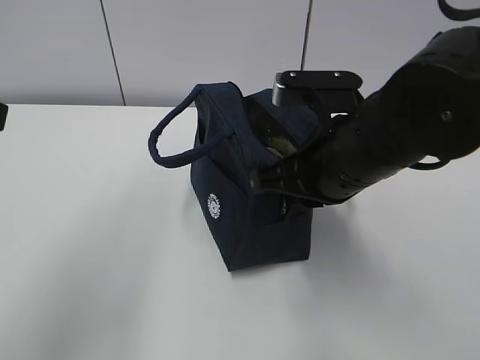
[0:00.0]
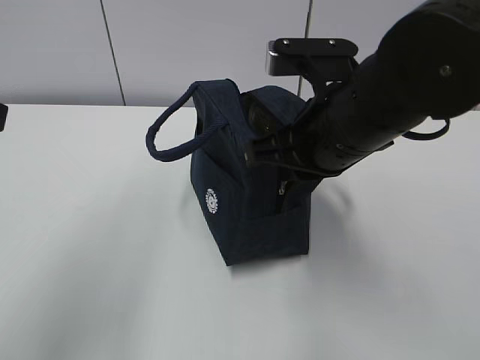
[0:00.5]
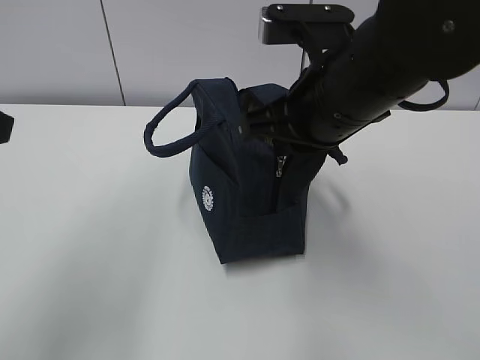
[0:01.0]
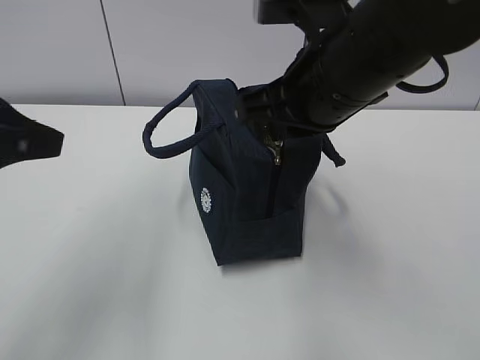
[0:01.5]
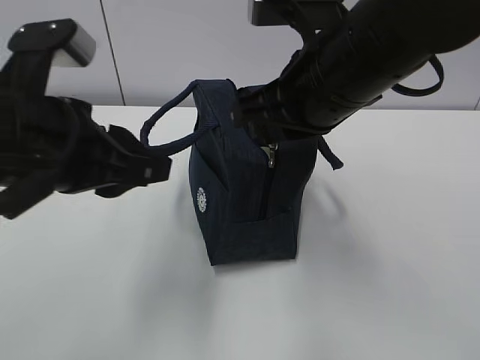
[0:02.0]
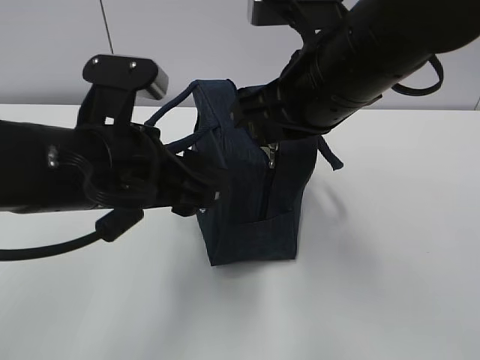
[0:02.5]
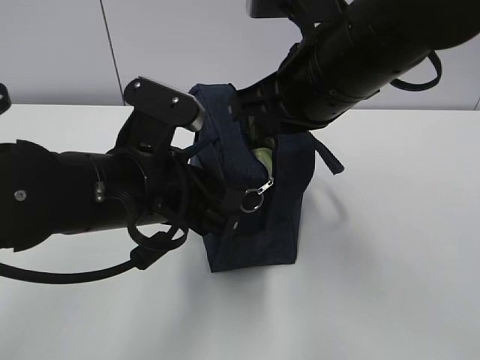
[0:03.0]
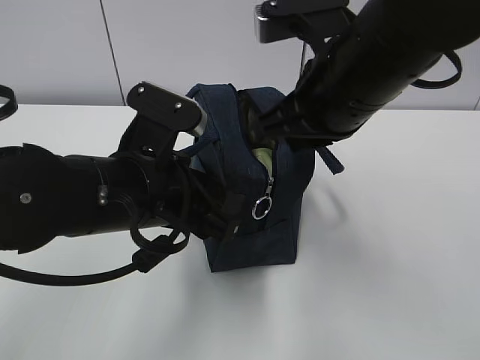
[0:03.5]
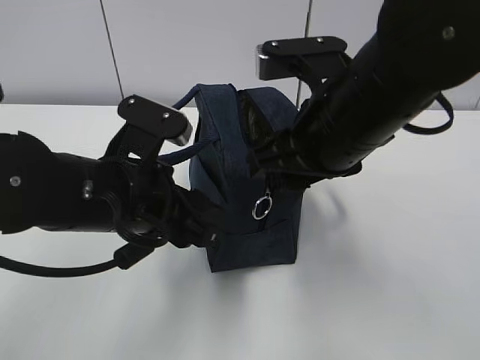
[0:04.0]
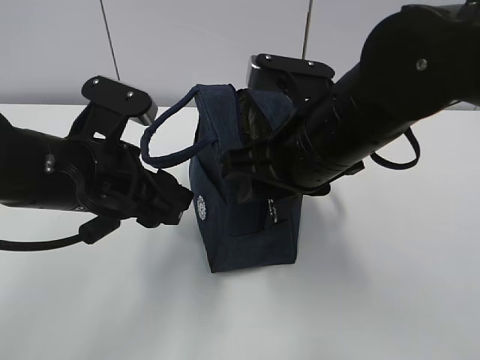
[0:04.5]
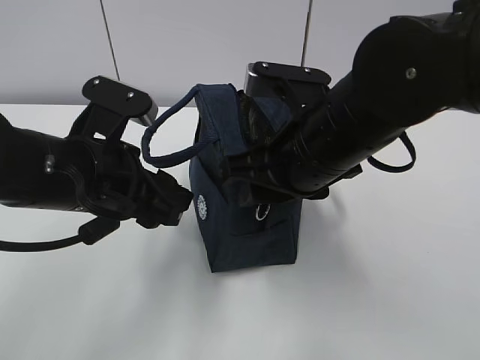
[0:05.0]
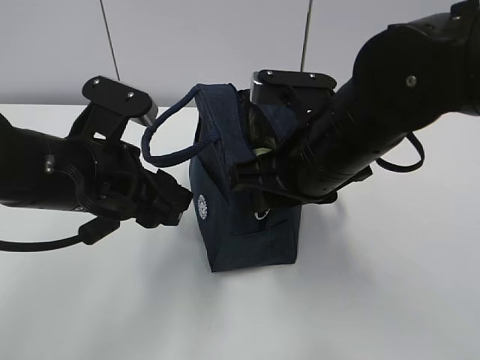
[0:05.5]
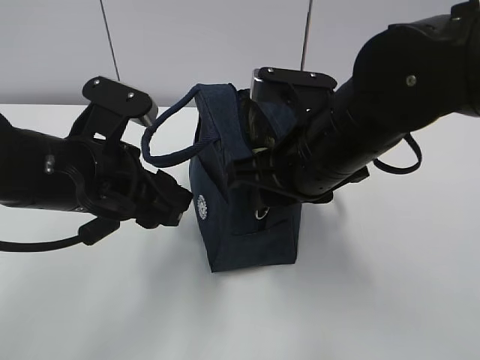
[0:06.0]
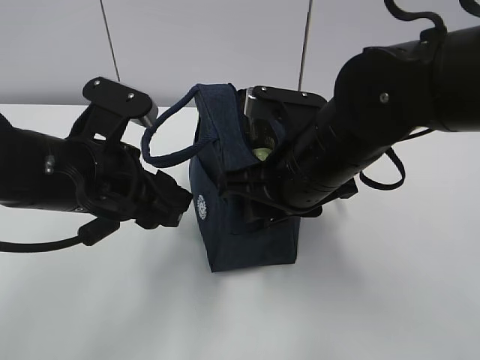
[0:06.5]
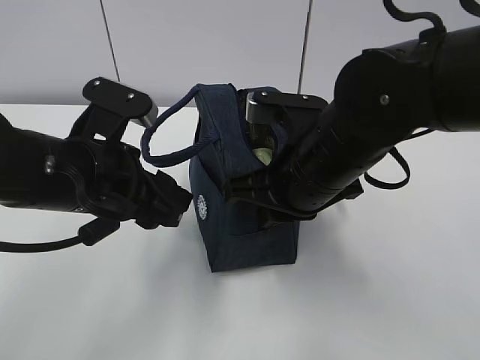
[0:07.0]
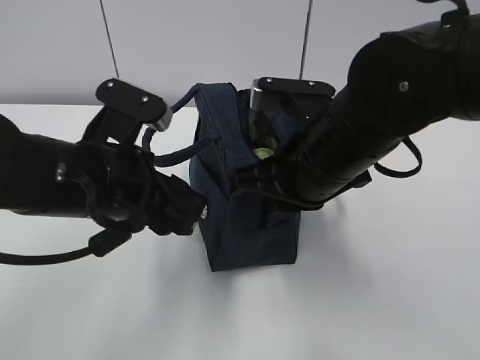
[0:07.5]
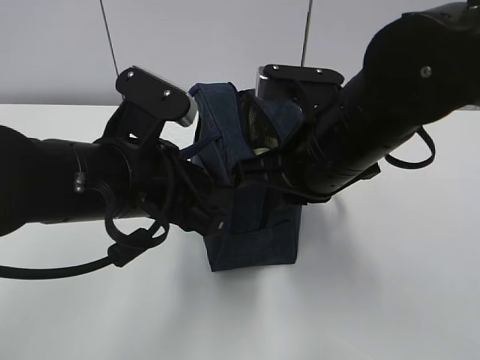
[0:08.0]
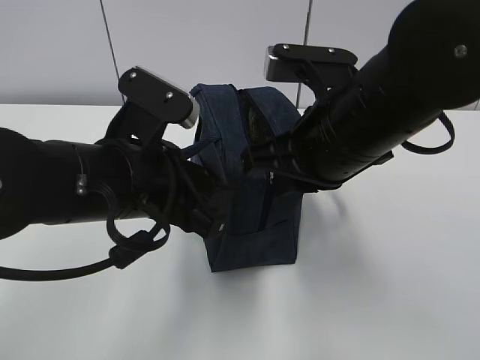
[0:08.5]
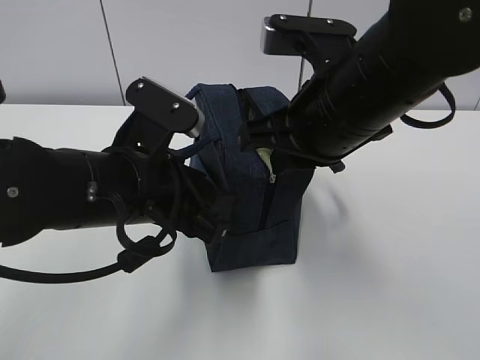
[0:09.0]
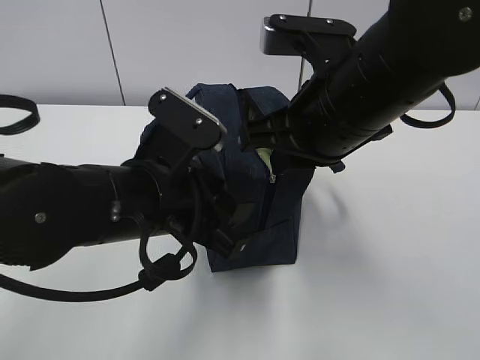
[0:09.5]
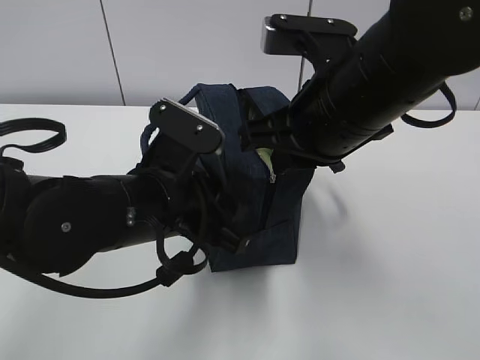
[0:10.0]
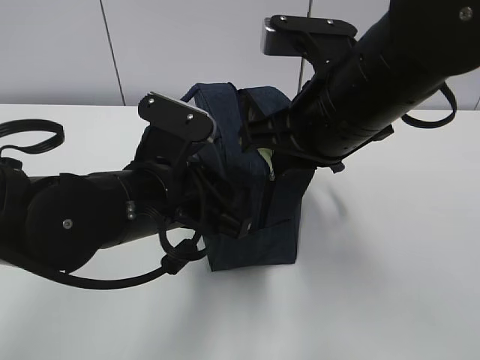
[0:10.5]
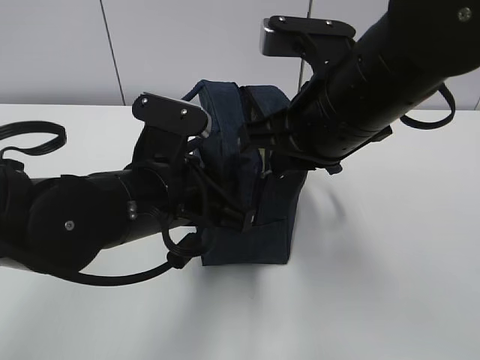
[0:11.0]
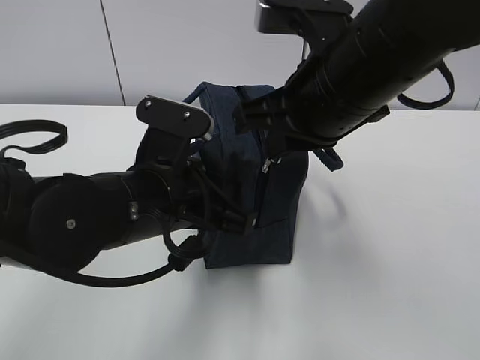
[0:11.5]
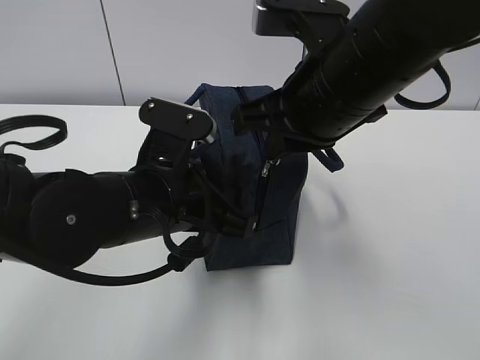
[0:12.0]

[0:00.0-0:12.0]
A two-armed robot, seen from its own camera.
Step, 0:02.0 to 0:07.0: Pull the zipper with your right hand.
Step, 0:07.5 to 0:09.0: Grab the lunch bag with your left hand.
0:00.0 to 0:02.0: The right gripper moves upward, approximately 5 cm; the left gripper shifts approximately 10 cm to the right and downward.
0:02.0 to 0:04.0: The left gripper moves downward and to the right, approximately 10 cm, and opens its fingers; the right gripper opens its fingers.
0:04.0 to 0:06.0: The grippers stay close to where they were, moving slightly.
0:06.0 to 0:08.0: The right gripper closes its fingers.
0:10.0 to 0:12.0: The left gripper closes.

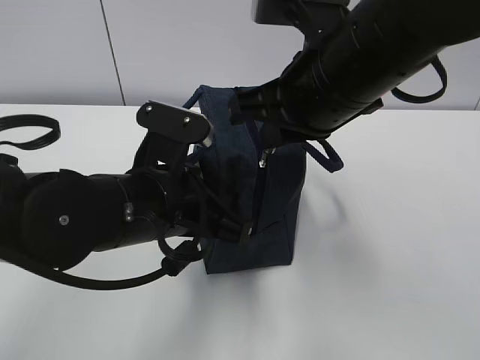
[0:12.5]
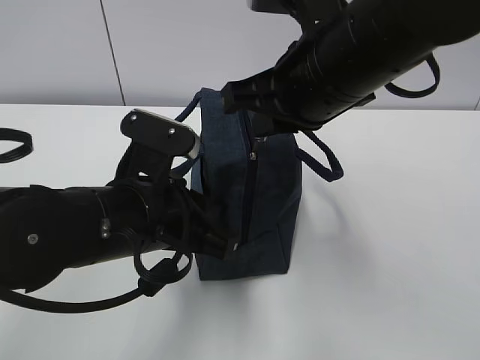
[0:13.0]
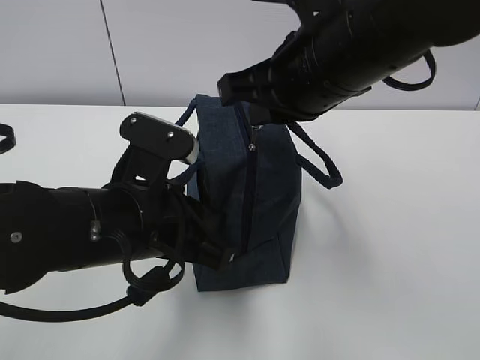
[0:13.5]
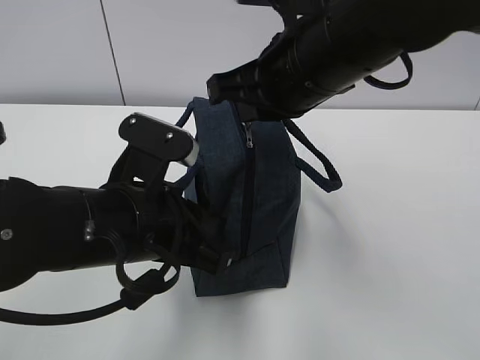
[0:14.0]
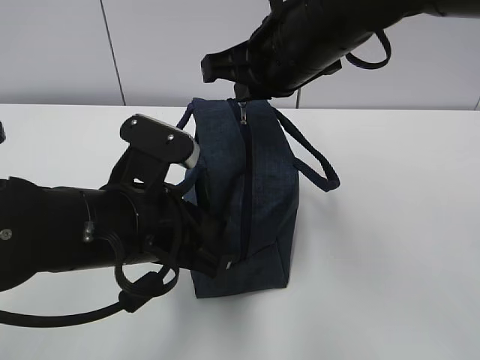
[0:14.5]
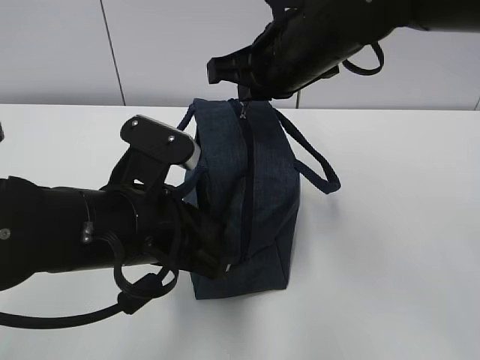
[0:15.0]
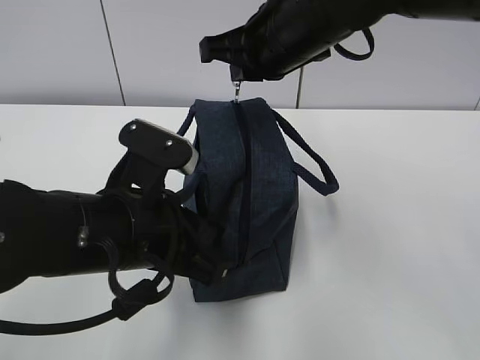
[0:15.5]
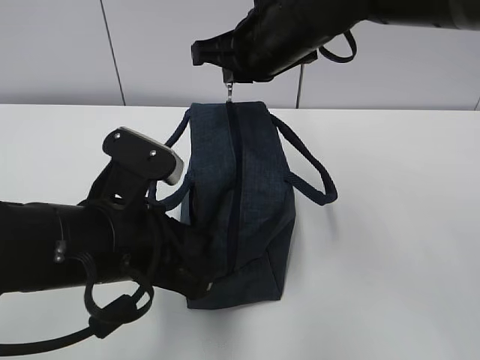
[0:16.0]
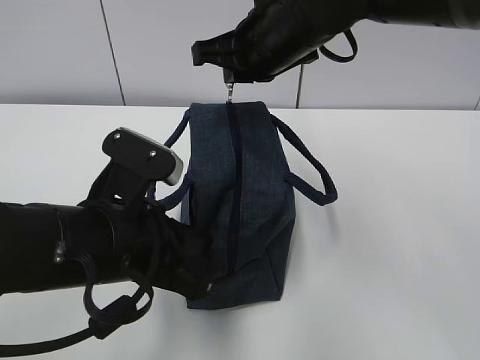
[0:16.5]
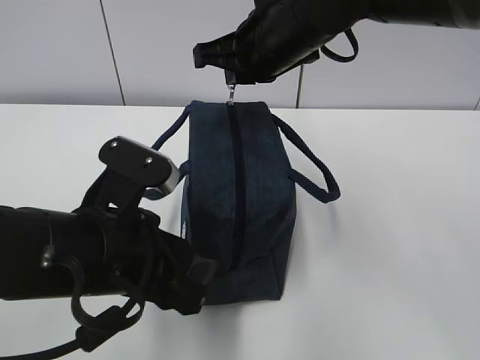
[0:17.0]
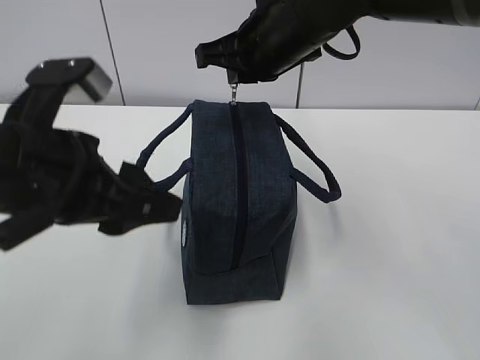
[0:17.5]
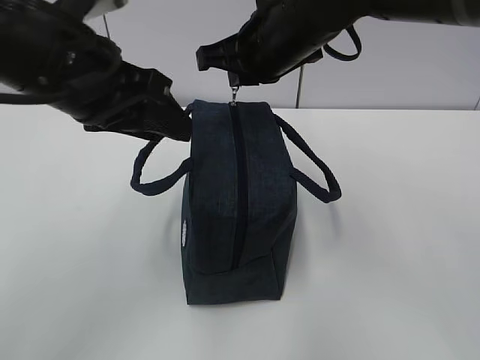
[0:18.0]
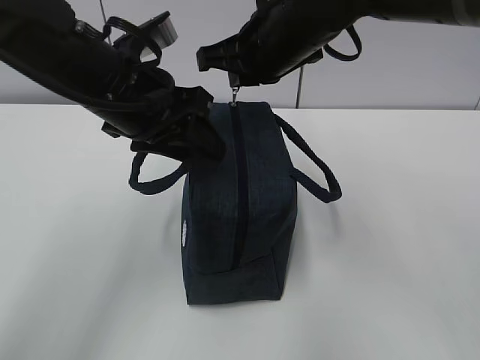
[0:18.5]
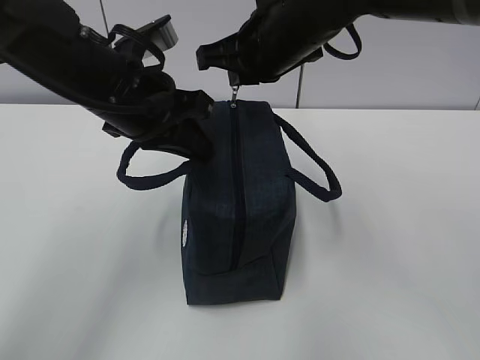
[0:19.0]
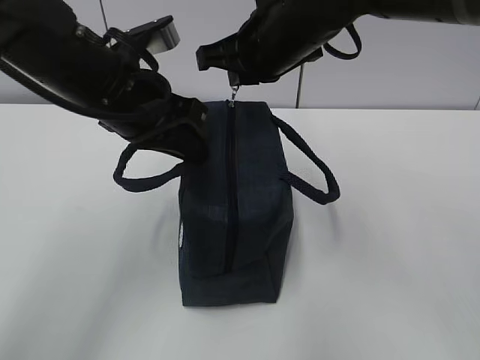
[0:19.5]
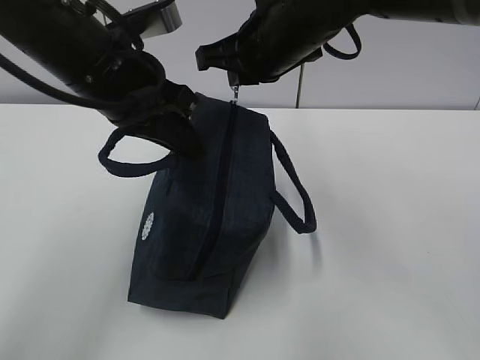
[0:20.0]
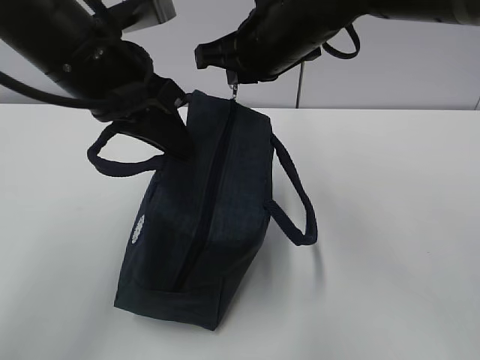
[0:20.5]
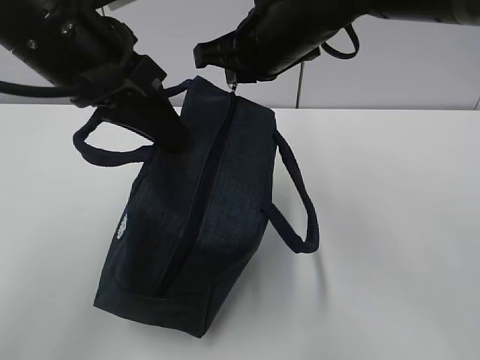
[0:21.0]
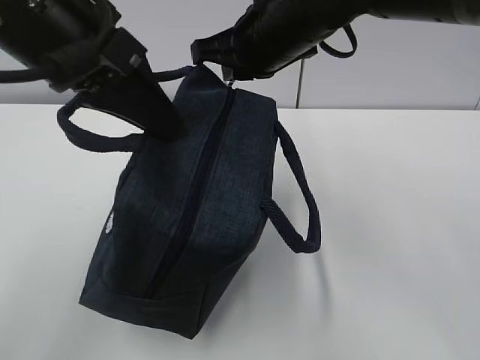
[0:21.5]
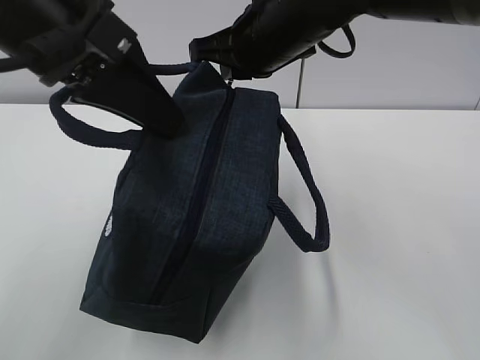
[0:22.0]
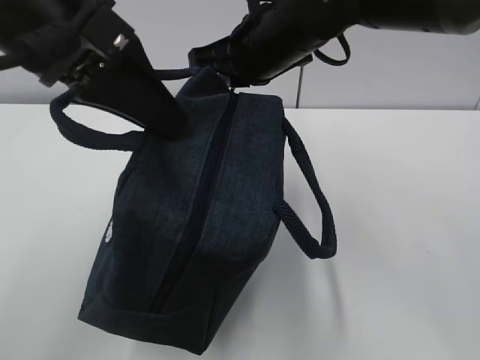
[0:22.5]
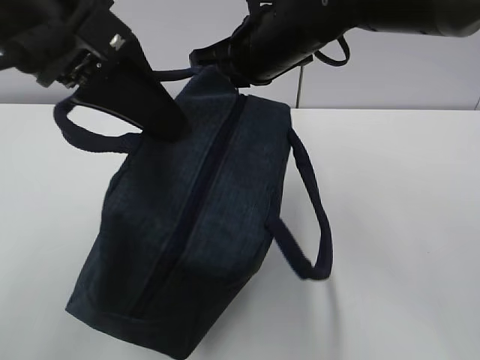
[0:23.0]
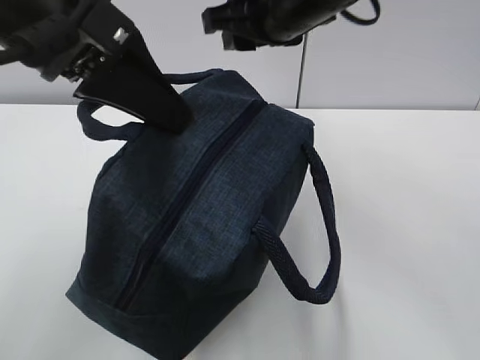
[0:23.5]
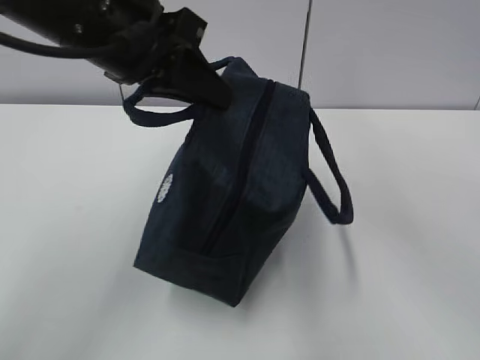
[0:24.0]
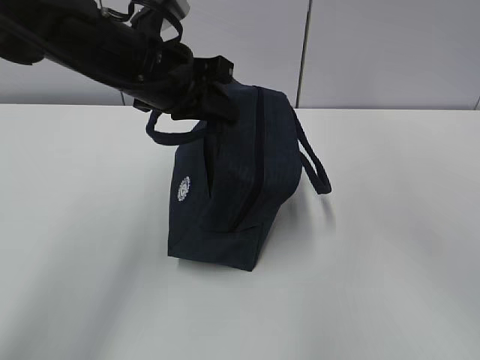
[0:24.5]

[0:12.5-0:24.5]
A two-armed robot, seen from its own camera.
0:12.5 to 0:14.5: The right gripper travels forward by some 5 cm.
0:14.5 to 0:16.5: The right gripper ends up some 5 cm from where it was.
0:16.5 to 0:18.5: The left gripper heads forward and upward, covering some 15 cm, and opens its fingers.
0:18.5 to 0:20.5: The left gripper closes up.
0:20.5 to 0:22.5: The left gripper heads upward and backward, covering about 10 cm.
0:22.5 to 0:24.5: The left gripper travels forward and downward by some 15 cm. Meanwhile the right gripper heads upward, backward and to the right, covering roughly 20 cm, and opens up.

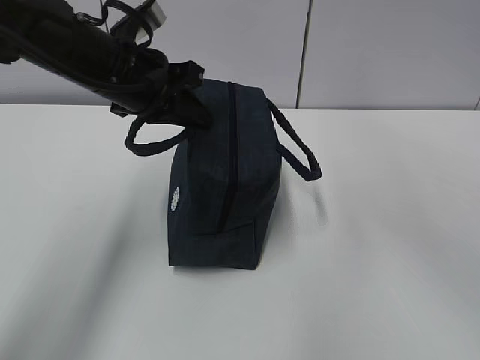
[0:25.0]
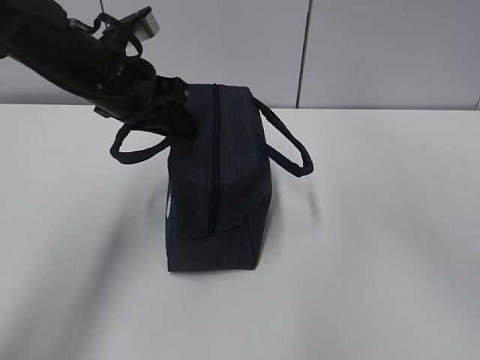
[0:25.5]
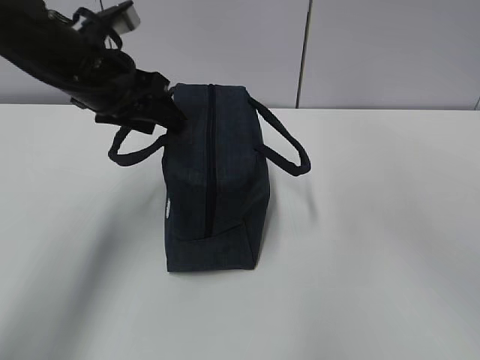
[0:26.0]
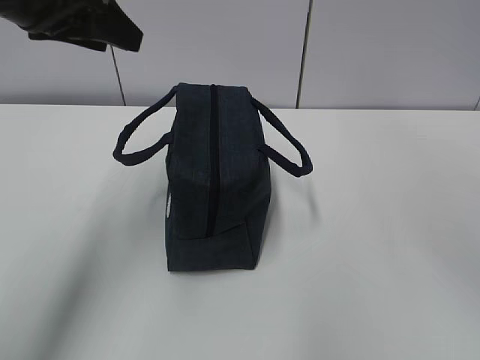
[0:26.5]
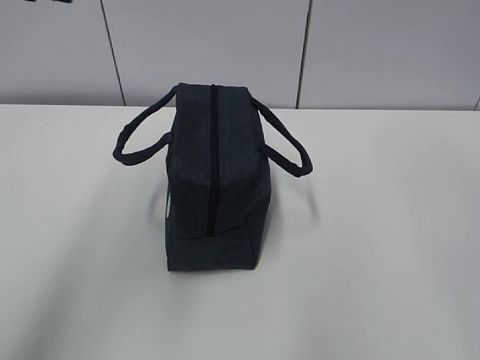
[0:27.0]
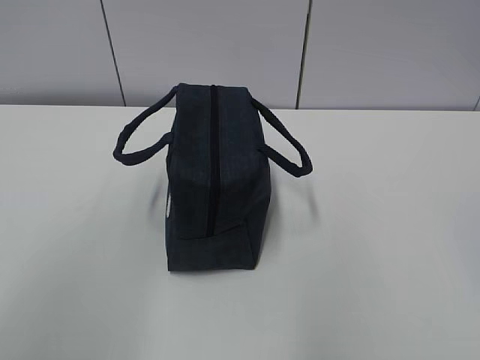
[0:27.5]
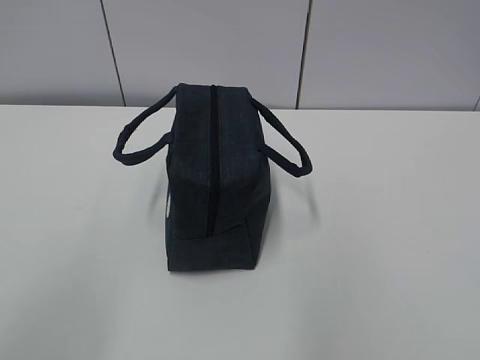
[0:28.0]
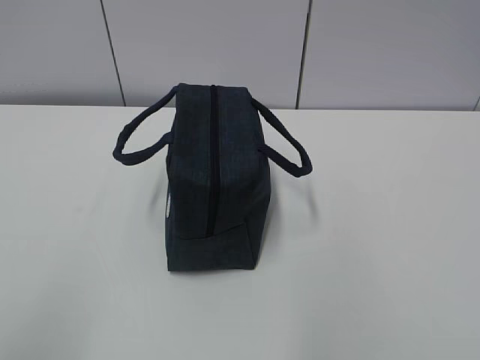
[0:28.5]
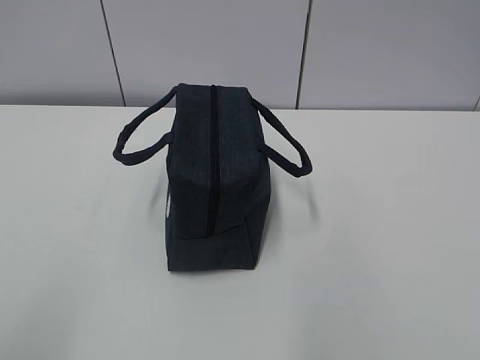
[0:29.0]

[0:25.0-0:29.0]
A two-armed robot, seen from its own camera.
0:25.0 to 0:27.0: The left gripper shifts some 20 cm upward, backward and to the left, and opens up. Meanwhile the right gripper travels backward, to the right and upward by about 15 cm.
0:27.0 to 0:29.0: The left gripper heads backward and downward, covering roughly 30 cm.
